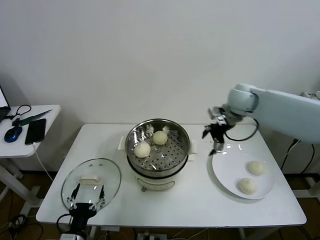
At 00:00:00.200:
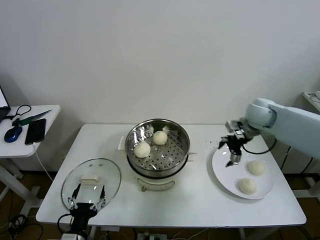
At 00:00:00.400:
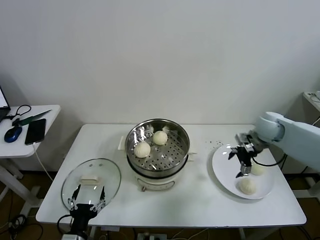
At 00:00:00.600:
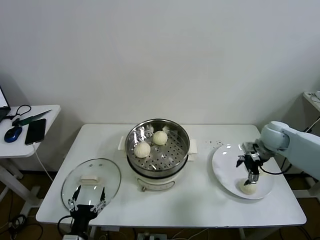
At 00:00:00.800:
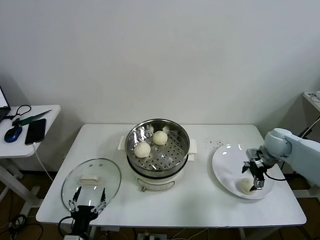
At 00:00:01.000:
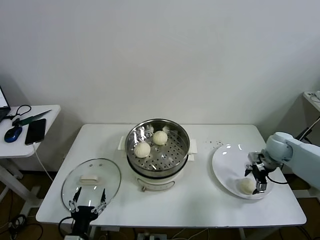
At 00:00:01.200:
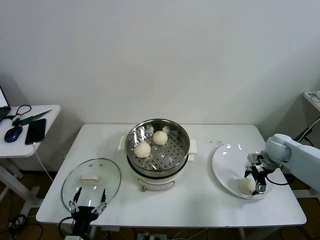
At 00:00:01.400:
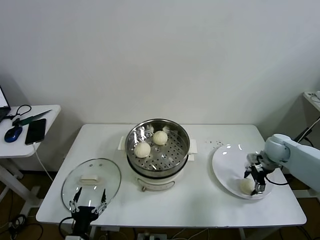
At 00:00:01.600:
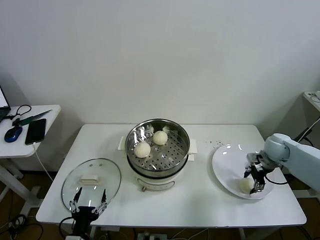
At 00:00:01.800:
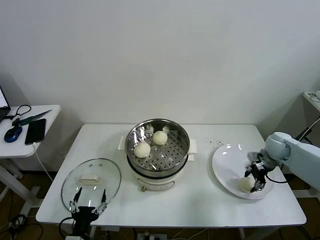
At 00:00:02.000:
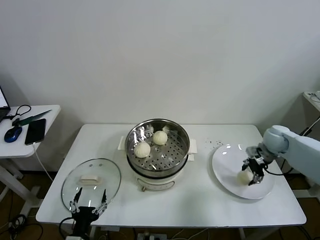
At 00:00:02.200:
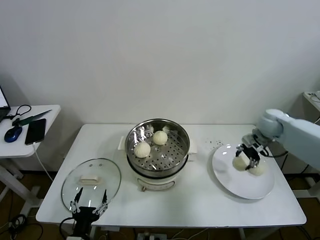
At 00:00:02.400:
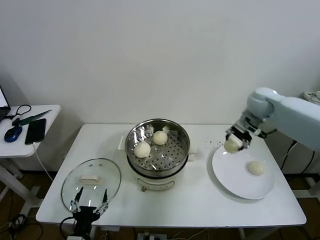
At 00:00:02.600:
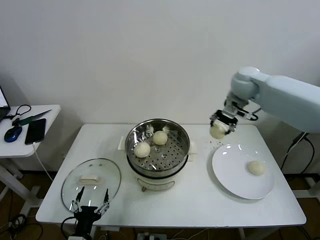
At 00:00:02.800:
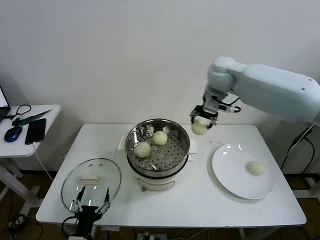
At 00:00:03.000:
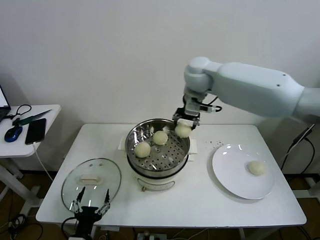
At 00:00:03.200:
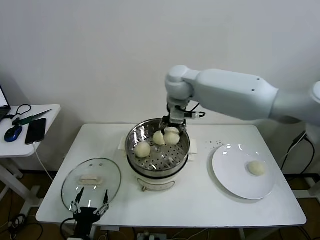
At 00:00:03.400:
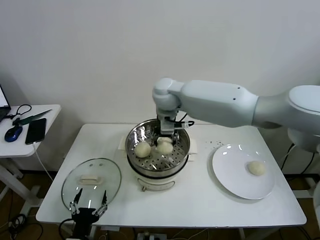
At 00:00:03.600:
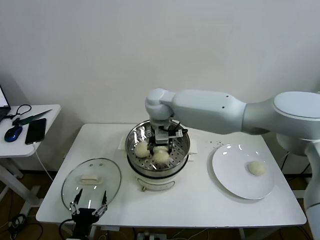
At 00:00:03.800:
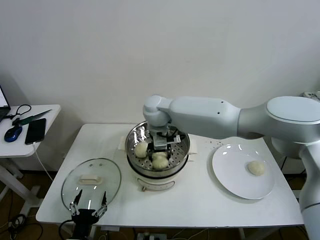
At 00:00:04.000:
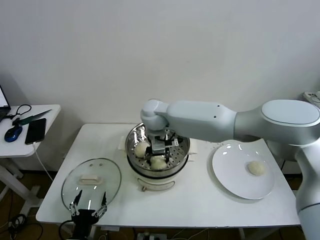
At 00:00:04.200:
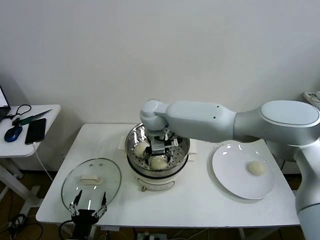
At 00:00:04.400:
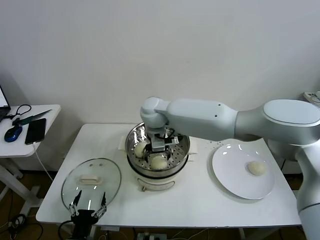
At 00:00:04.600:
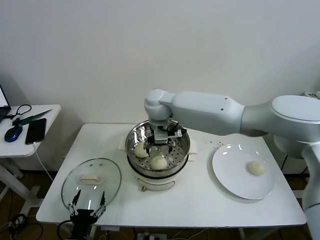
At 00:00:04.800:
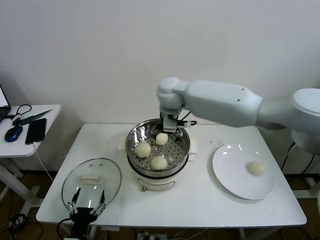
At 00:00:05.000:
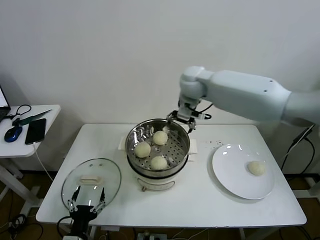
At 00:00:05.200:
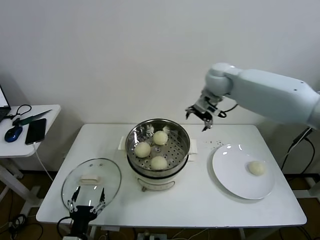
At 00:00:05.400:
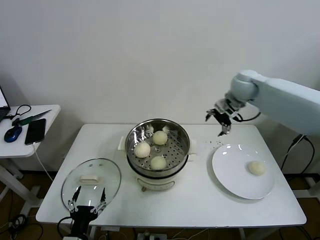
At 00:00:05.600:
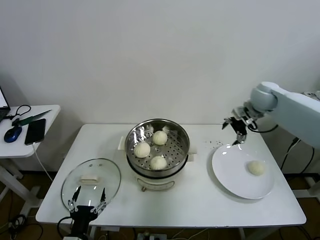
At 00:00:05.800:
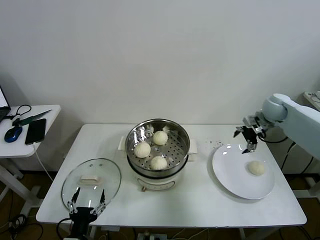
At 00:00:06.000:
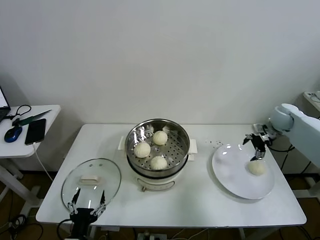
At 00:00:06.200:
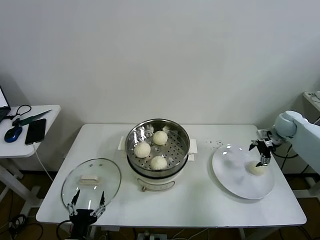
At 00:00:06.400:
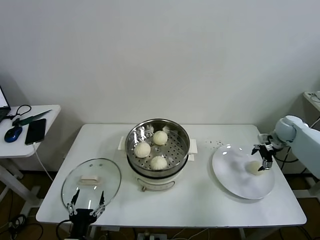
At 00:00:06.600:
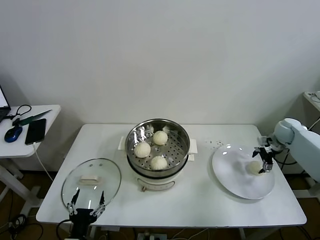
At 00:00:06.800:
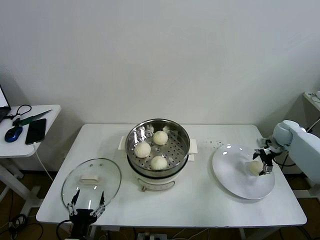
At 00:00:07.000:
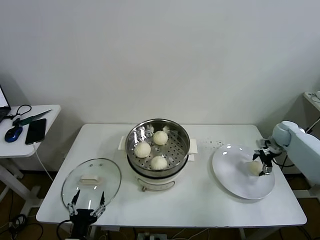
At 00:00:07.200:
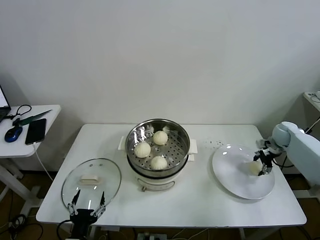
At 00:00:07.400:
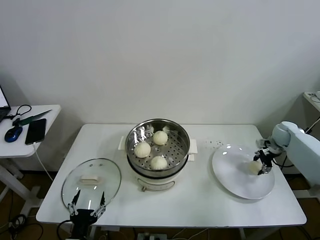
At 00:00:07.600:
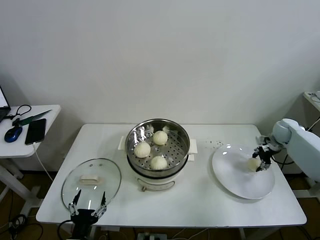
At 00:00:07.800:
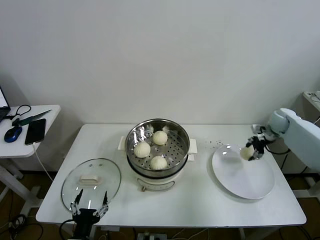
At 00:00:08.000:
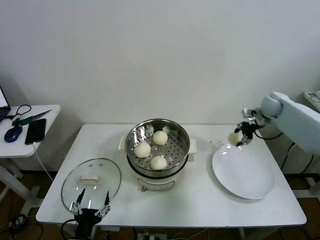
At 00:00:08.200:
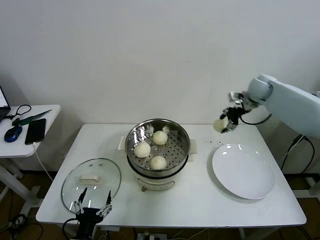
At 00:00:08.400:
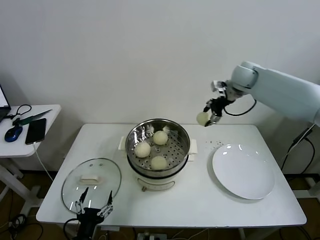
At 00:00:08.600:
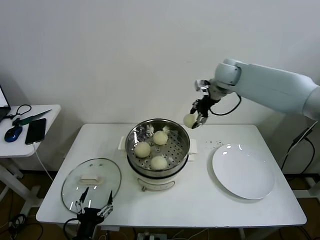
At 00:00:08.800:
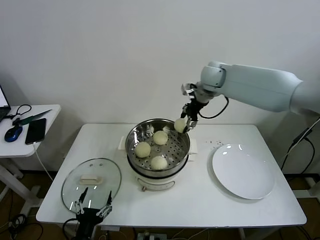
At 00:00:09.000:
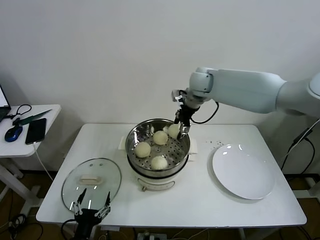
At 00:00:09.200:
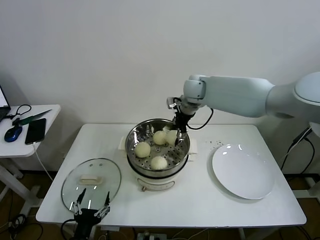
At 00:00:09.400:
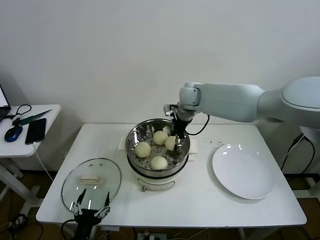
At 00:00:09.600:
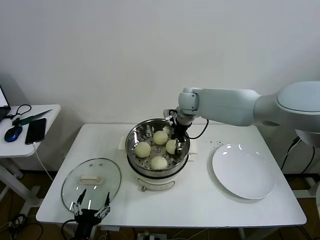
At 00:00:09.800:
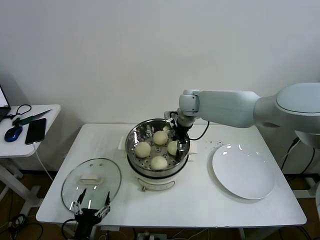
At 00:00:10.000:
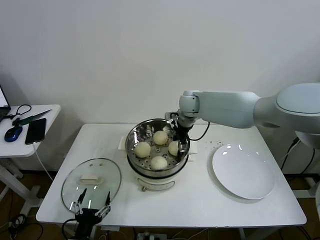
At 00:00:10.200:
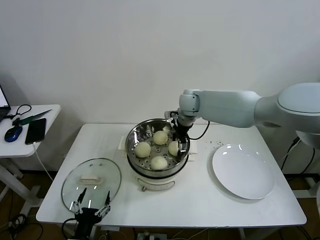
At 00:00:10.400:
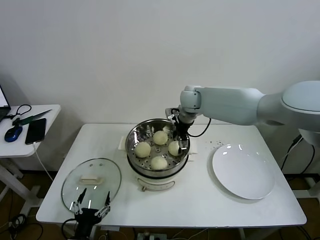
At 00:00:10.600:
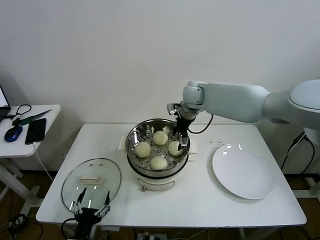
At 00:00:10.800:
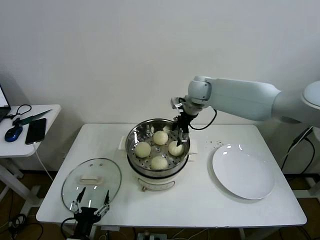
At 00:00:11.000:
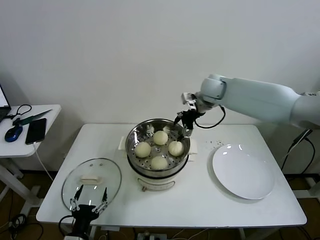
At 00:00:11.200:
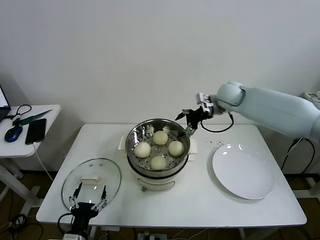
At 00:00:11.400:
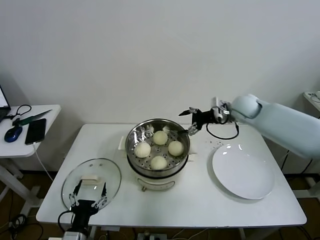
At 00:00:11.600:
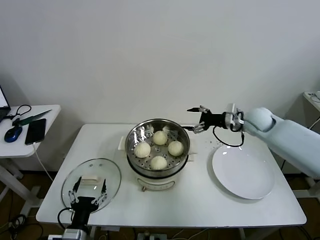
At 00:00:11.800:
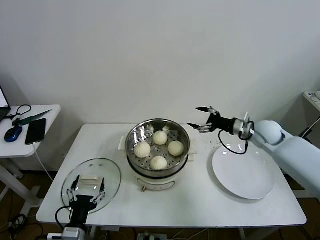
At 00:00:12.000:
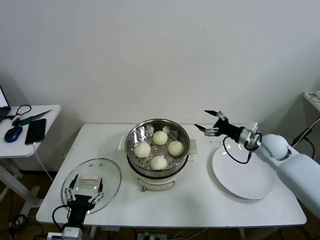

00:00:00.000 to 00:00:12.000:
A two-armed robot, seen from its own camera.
Task of the whole recording: take steamed baozi put them in steamer then cover it.
Step, 00:00:00.000 to 00:00:01.600: Grasp the baozi in the plate with right gripper.
Step, 00:00:01.800 to 00:00:04.200: Place the baozi on the steamer with right gripper.
Step, 00:00:04.600 to 00:00:07.400: Grasp the baozi in the plate with right gripper.
Step, 00:00:07.600 to 00:00:10.200: Place the baozi on the steamer with right gripper.
00:00:00.000 to 00:00:01.600: The right gripper moves downward and to the right, some 20 cm, and closes its fingers.
00:00:01.600 to 00:00:03.000: The right gripper travels to the left and upward by approximately 40 cm.
00:00:03.000 to 00:00:04.400: The right gripper heads to the left and downward, covering about 15 cm, and opens up.
00:00:04.400 to 00:00:06.000: The right gripper travels to the right by some 50 cm.
00:00:06.000 to 00:00:07.600: The right gripper shifts about 5 cm downward, and closes its fingers.
00:00:07.600 to 00:00:09.000: The right gripper shifts roughly 40 cm to the left and upward.
00:00:09.000 to 00:00:10.400: The right gripper is displaced downward by roughly 5 cm, and opens up.
00:00:10.400 to 00:00:12.000: The right gripper moves to the right, backward and downward, about 30 cm.

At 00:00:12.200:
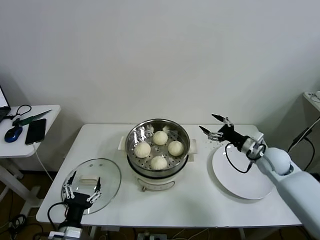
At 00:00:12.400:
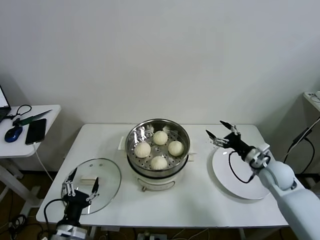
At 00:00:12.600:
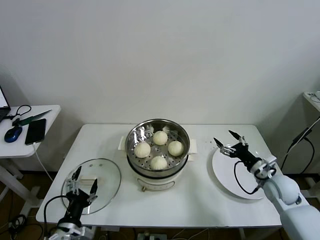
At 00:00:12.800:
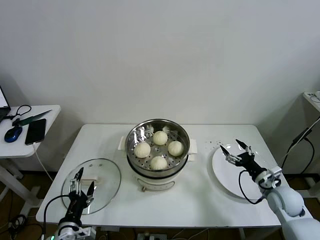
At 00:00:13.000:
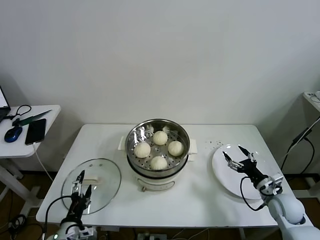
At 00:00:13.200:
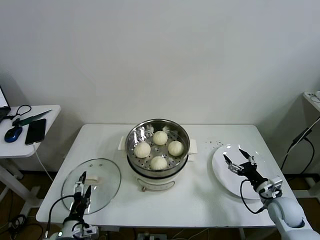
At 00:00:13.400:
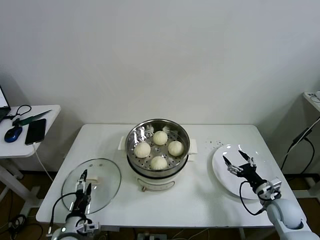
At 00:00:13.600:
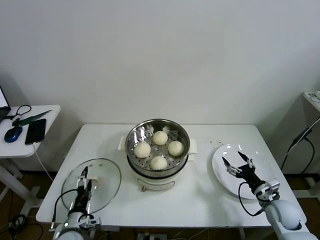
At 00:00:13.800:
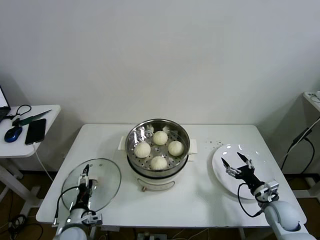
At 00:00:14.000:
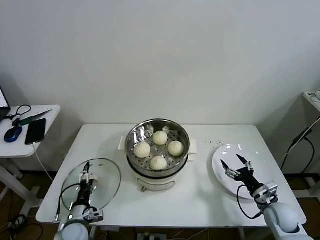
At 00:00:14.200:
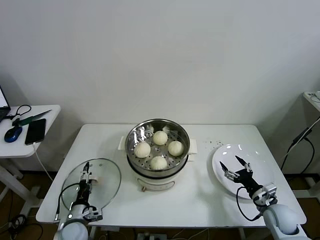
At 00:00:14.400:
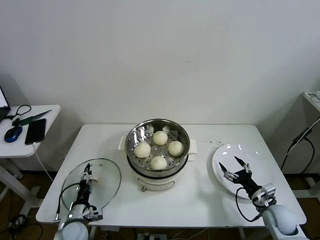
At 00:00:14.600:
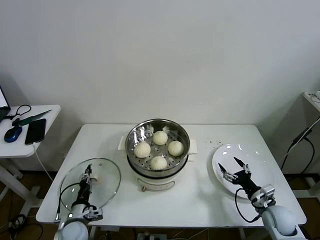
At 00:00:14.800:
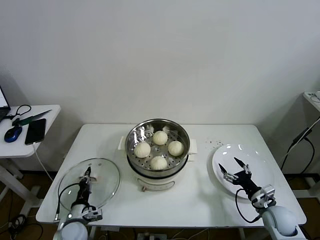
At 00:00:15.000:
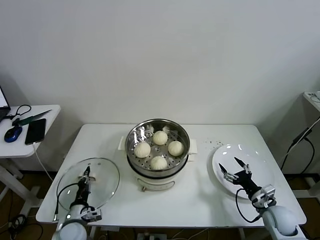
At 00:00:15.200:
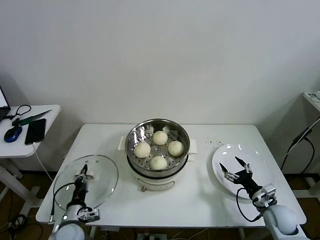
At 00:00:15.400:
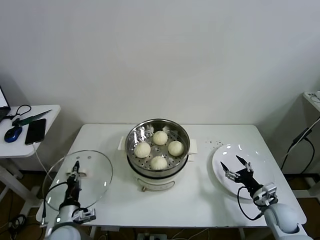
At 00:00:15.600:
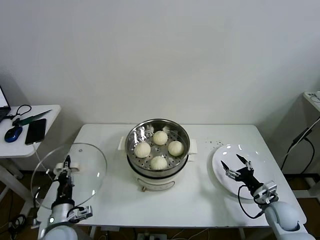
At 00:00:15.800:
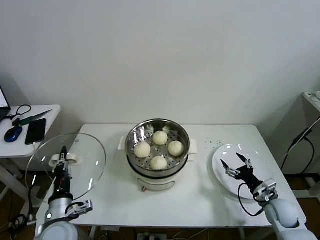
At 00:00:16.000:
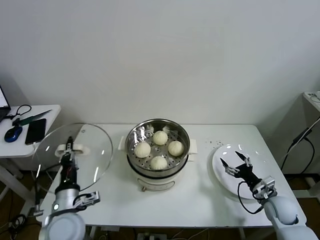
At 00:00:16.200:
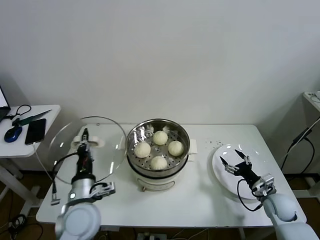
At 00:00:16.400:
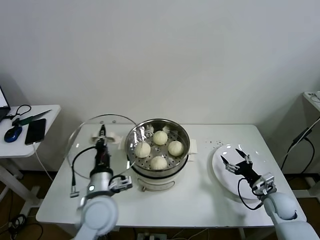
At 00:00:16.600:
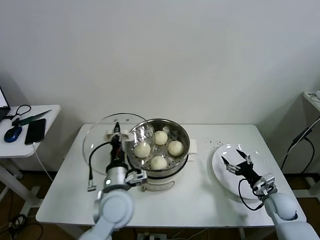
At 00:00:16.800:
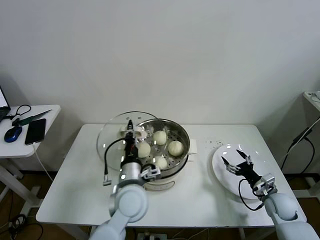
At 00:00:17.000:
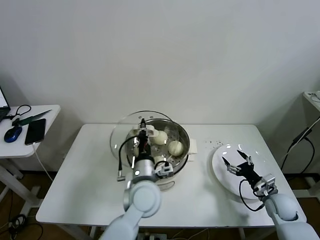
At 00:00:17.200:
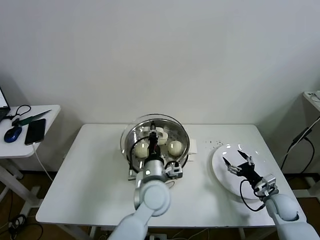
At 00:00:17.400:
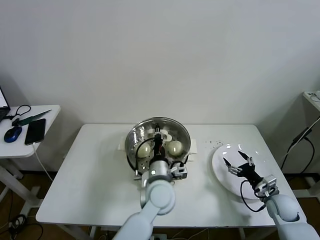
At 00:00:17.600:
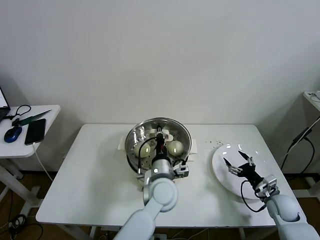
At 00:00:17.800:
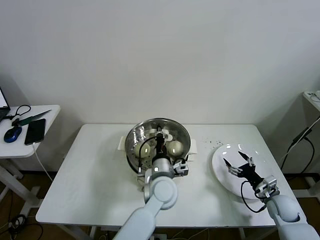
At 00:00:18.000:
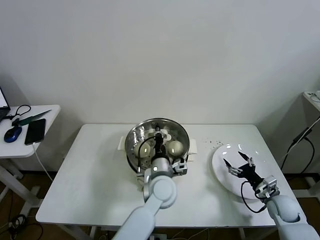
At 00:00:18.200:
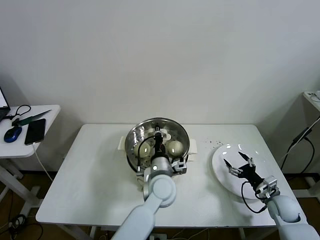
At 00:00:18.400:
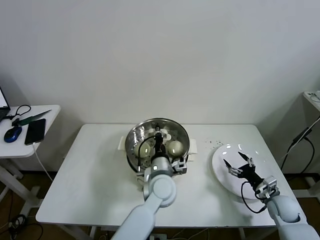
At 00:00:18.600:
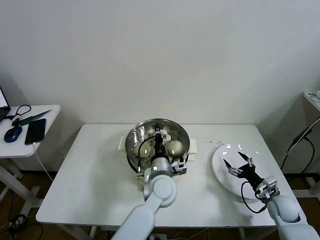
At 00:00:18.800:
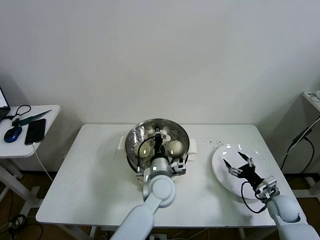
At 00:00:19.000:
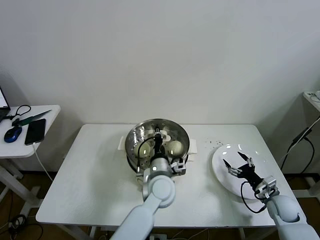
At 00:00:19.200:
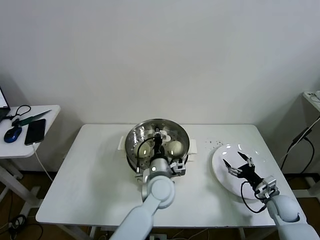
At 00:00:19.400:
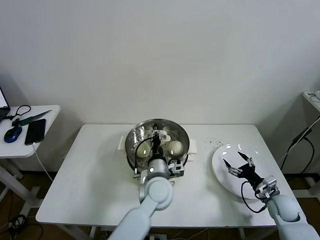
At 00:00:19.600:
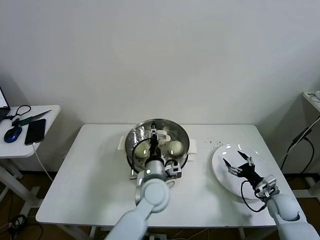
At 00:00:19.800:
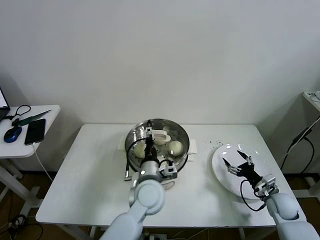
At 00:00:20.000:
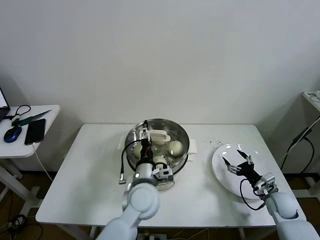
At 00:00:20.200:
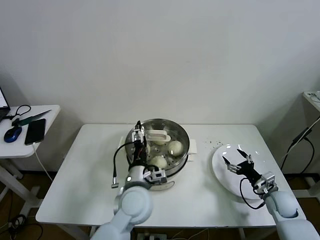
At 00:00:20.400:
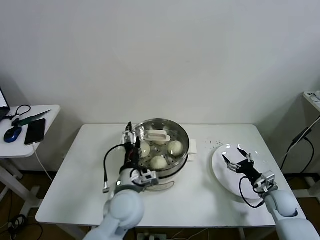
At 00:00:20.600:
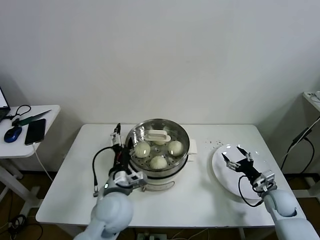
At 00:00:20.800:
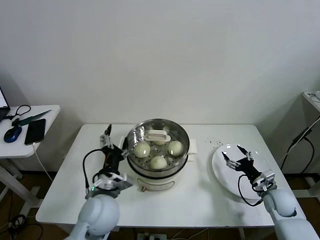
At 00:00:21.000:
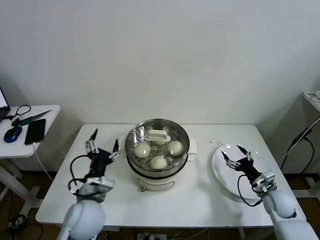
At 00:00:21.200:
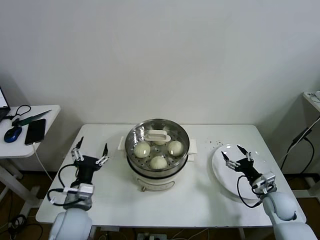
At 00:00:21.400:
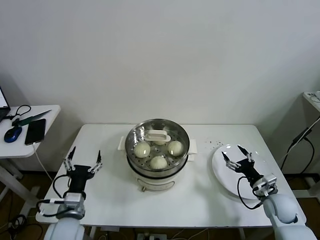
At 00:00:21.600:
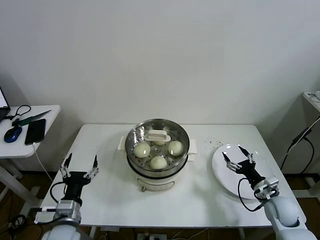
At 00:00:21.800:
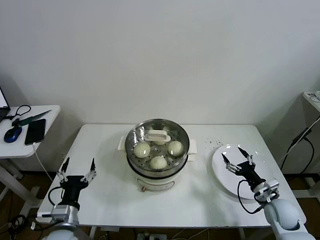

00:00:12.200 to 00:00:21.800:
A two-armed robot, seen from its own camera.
Task of the whole recording: take steamed baozi put them in steamer then cover it.
Step, 00:00:12.200 to 00:00:14.800: Grasp the pot lid with left gripper.
Step, 00:00:15.000 to 00:00:19.400: Place the pot lid on the steamer with left gripper.
00:00:12.200 to 00:00:13.800: The right gripper goes about 20 cm downward and backward. The left gripper travels downward and forward by about 15 cm.
00:00:13.800 to 00:00:15.400: The left gripper closes its fingers.
00:00:15.400 to 00:00:17.000: The left gripper travels to the right and upward by about 30 cm.
00:00:17.000 to 00:00:18.600: The left gripper moves to the right, approximately 5 cm.
00:00:18.600 to 00:00:20.200: The left gripper is displaced to the left by about 5 cm, and opens its fingers.
00:00:20.200 to 00:00:21.800: The left gripper shifts roughly 25 cm to the left and backward.
